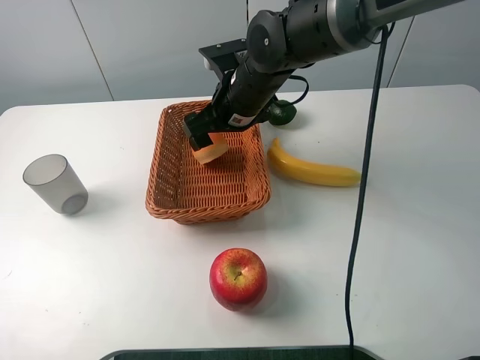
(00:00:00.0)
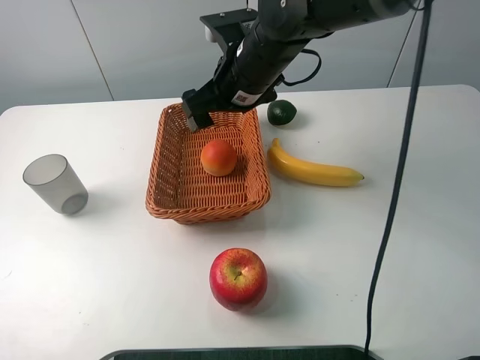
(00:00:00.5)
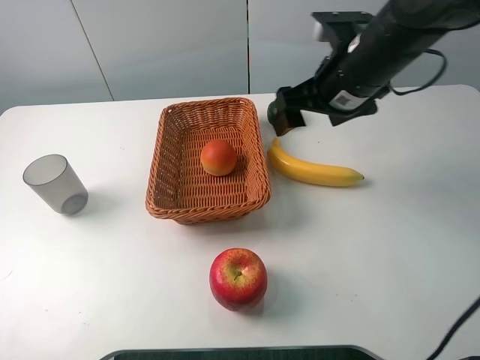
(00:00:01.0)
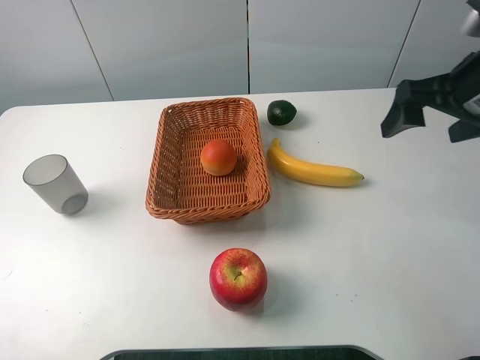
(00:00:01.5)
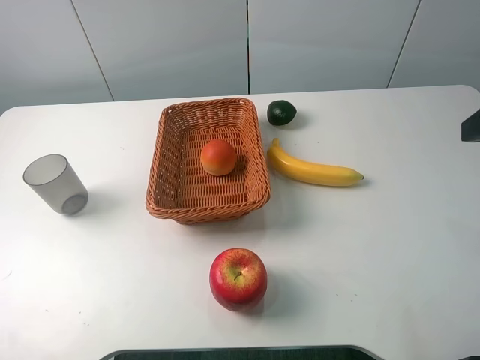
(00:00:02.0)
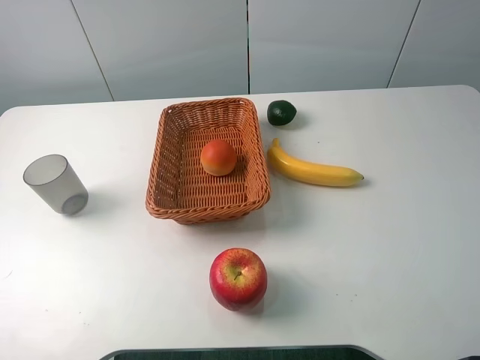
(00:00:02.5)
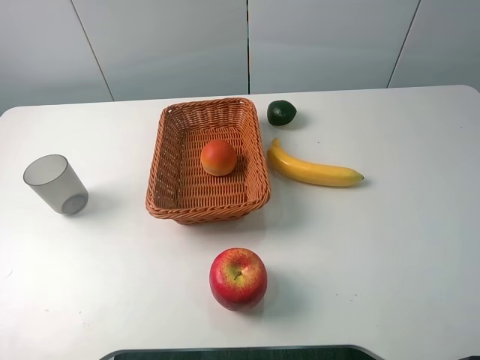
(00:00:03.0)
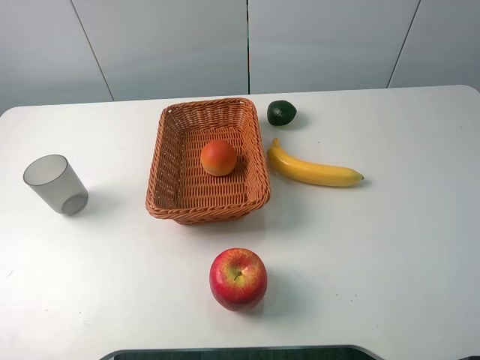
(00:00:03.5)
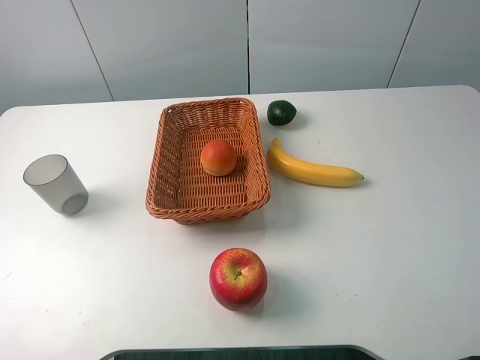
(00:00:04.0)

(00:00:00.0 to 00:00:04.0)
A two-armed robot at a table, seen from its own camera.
00:00:00.0 - 00:00:02.0: The right gripper heads to the right, backward and upward, covering about 35 cm.
